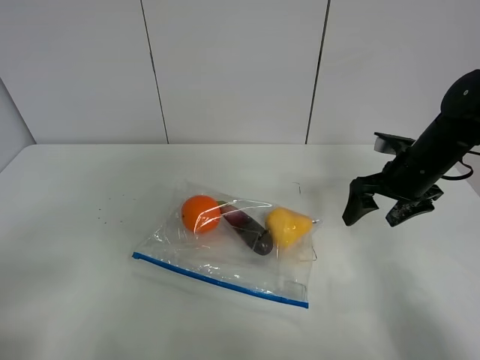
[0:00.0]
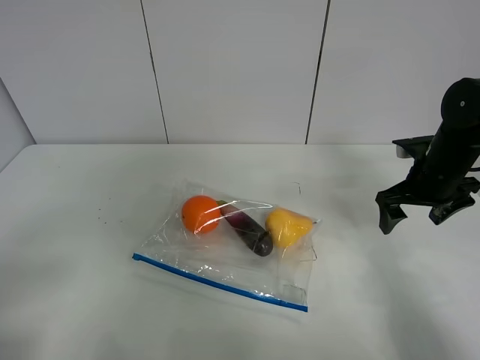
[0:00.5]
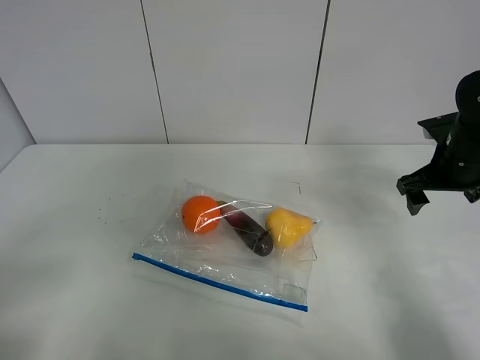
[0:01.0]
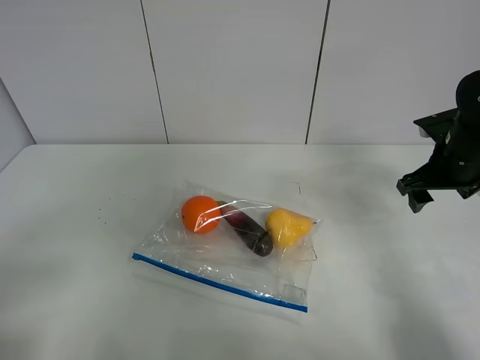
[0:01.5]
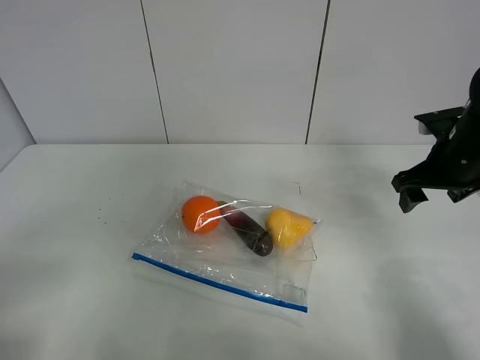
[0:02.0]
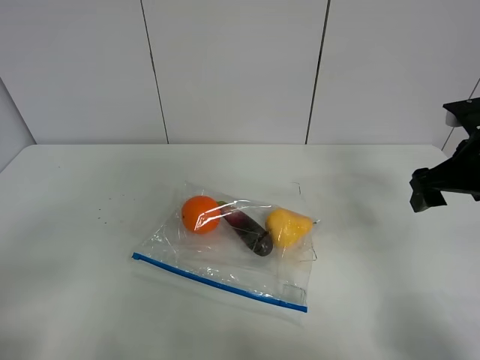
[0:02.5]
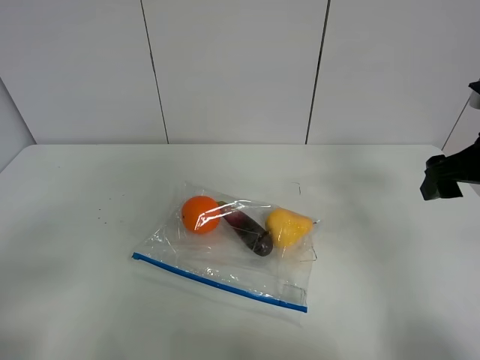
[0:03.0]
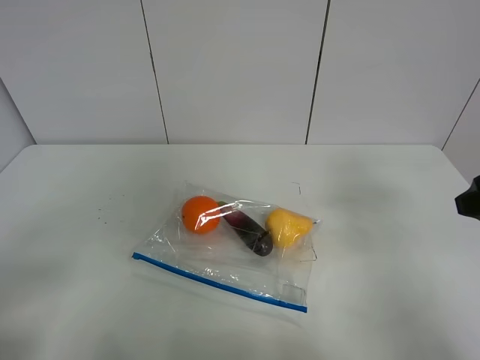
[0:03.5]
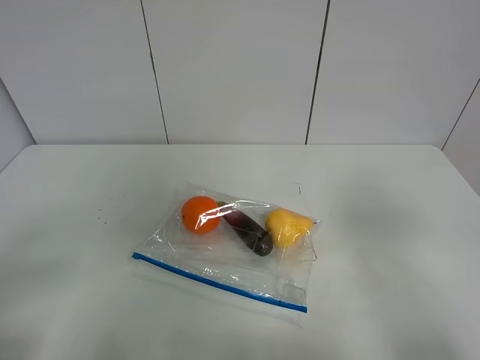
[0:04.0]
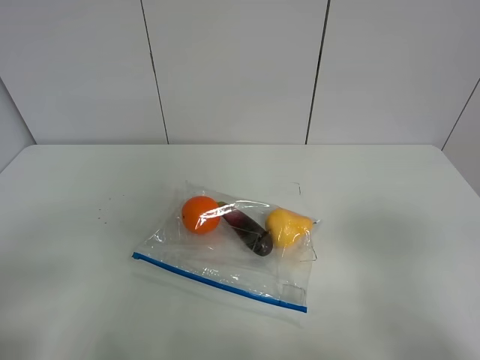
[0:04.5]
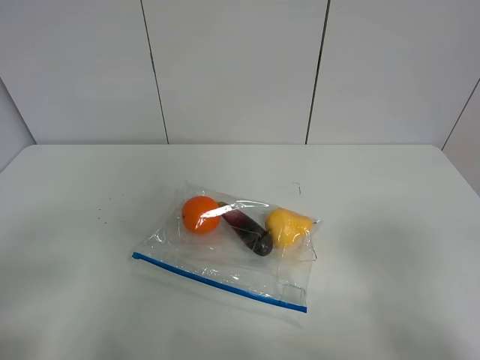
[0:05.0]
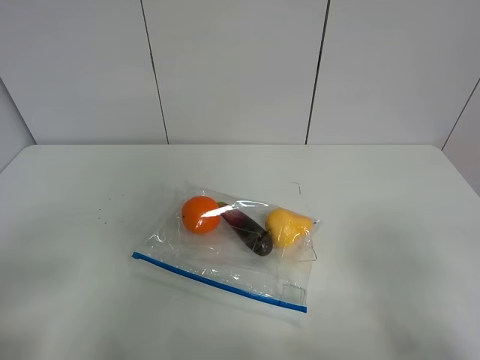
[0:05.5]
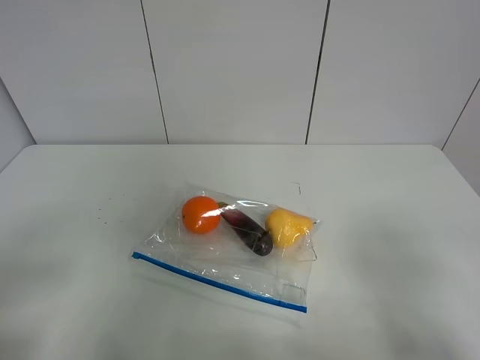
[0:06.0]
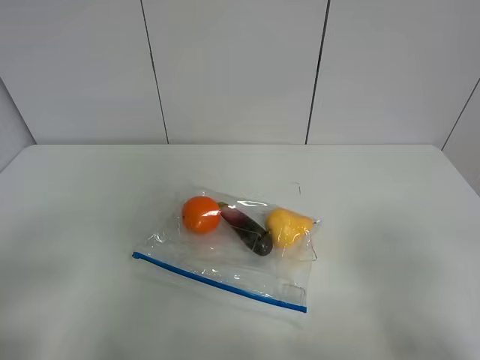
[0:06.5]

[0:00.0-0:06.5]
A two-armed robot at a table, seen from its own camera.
0:00.0 to 0:02.0: The right gripper shifts by about 5 cm.
0:02.0 to 0:04.5: The right gripper heads backward, covering about 35 cm.

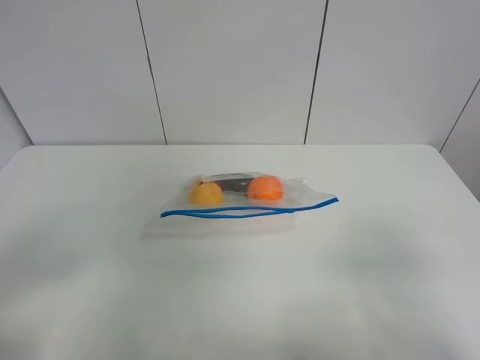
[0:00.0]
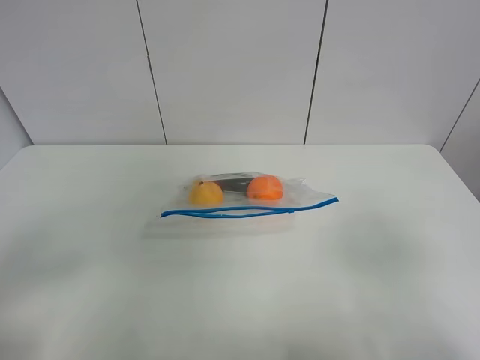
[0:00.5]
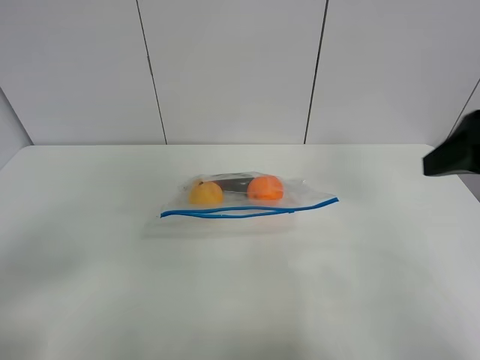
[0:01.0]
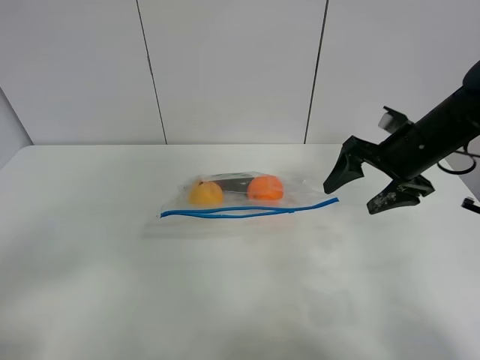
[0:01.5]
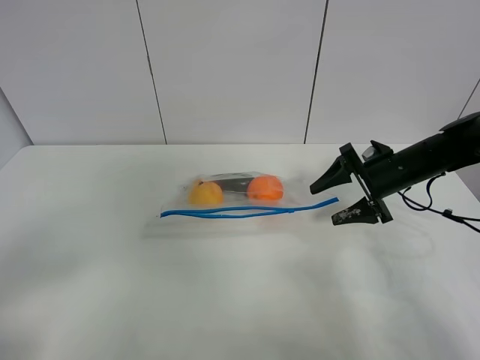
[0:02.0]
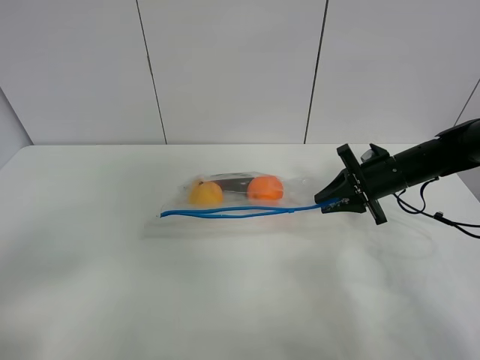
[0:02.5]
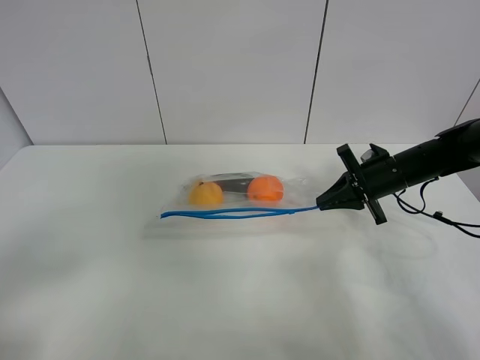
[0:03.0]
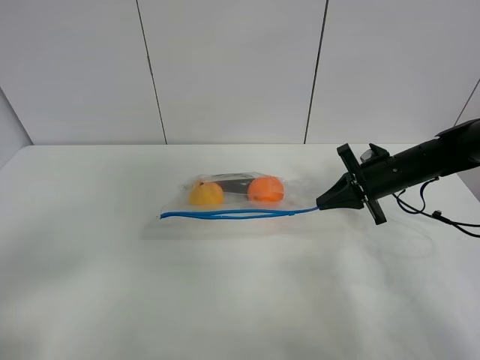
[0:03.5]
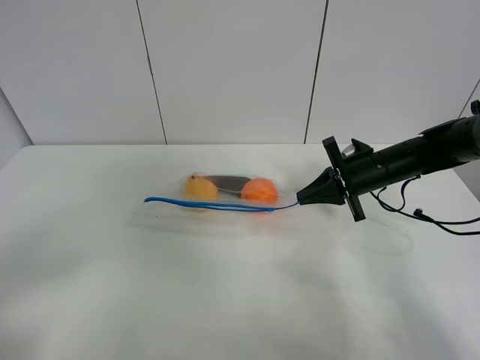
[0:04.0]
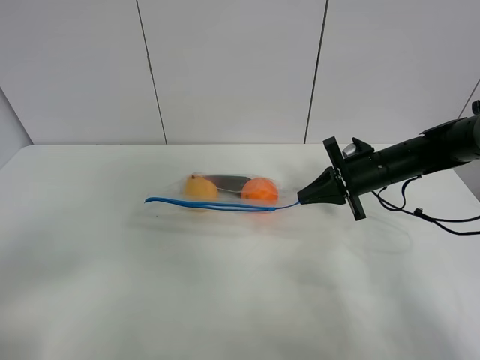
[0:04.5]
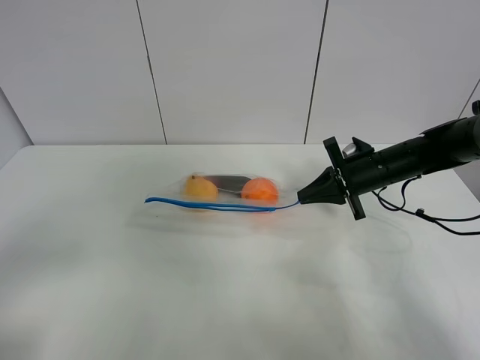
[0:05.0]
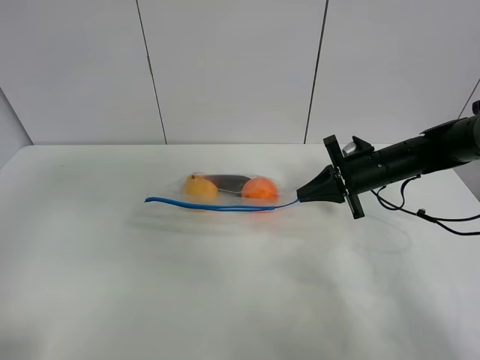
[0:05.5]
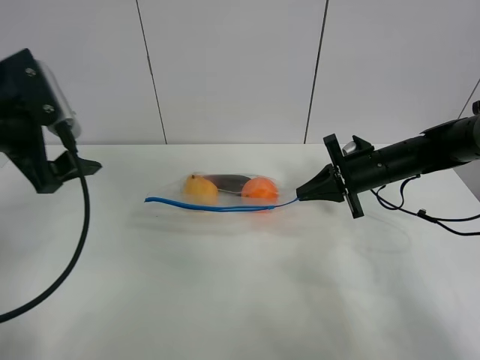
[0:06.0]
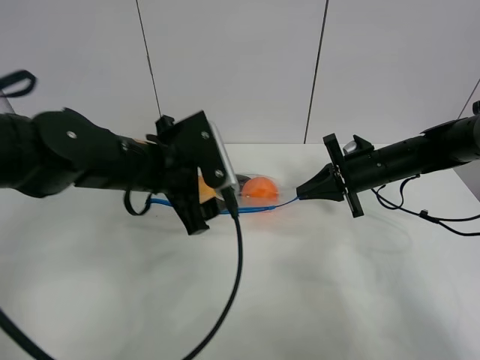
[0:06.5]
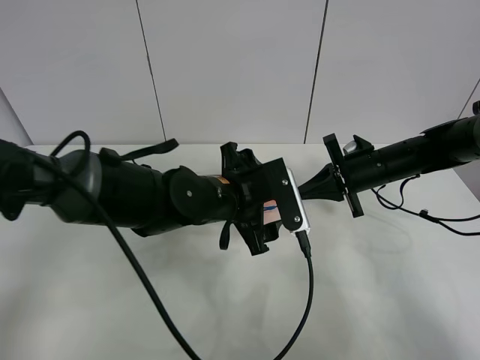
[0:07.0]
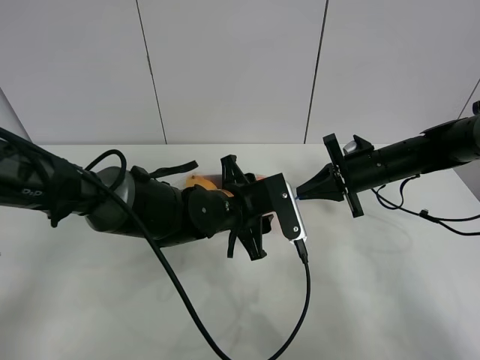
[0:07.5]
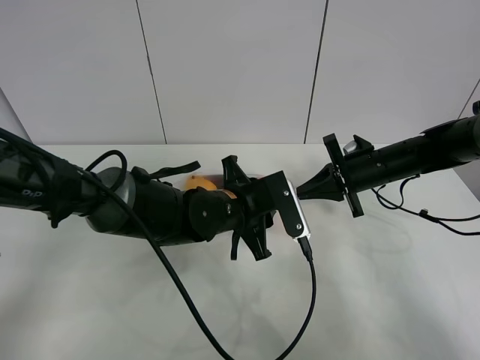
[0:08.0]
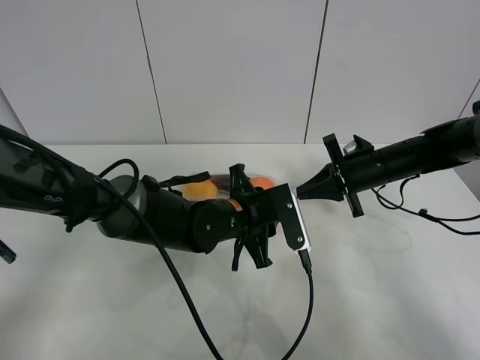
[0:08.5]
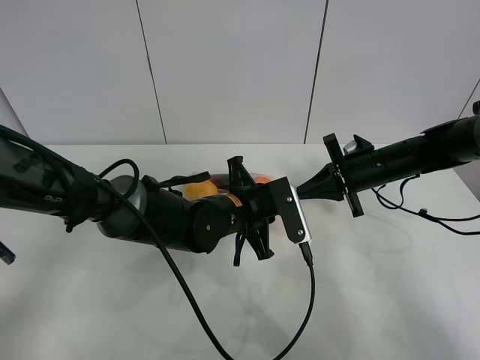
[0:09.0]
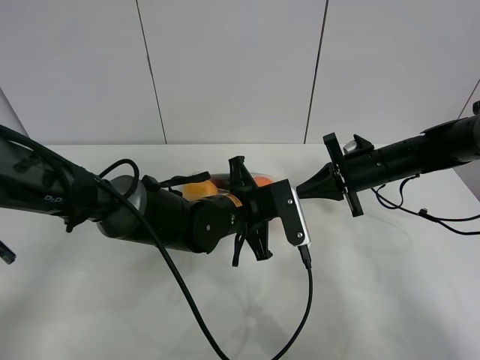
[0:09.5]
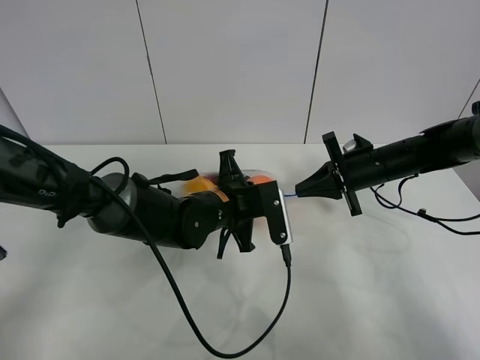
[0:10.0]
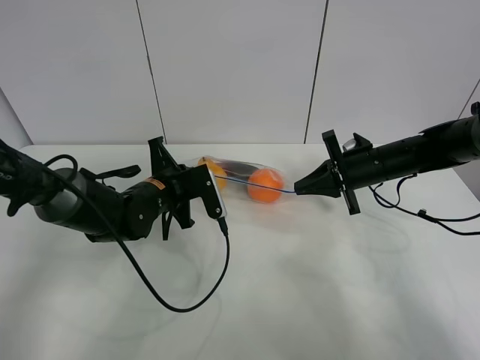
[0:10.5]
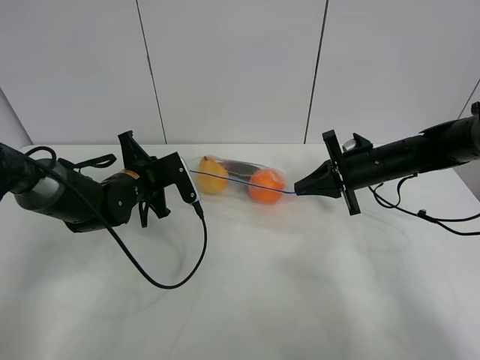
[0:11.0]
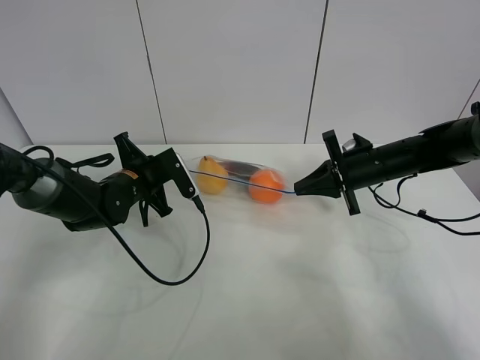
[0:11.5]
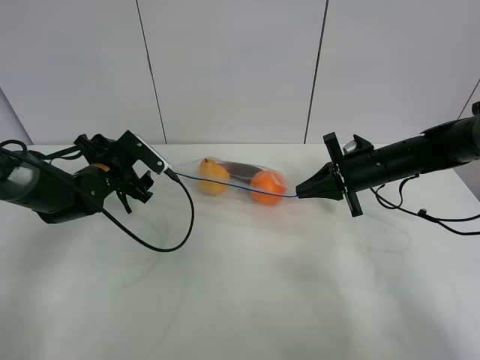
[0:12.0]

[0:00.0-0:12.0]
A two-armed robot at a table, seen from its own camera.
Step, 0:00.0 to 0:03.0: Grasp the fruit bag with right gripper.
Step, 0:03.5 to 0:04.5: Lift the fruit bag with your right gripper.
Step, 0:05.0 to 0:11.5: Pull the fruit bag with left gripper.
0:00.0 to 0:02.0: The right gripper moves forward, some 35 cm.
0:02.0 to 0:04.0: The right gripper closes up.
0:04.0 to 0:06.0: The left gripper moves forward, approximately 25 cm.
0:06.0 to 0:08.0: The left gripper shifts some 30 cm to the right and downward, and closes.
0:08.0 to 0:10.0: The left gripper closes its fingers.
0:10.0 to 0:12.0: The left gripper goes approximately 20 cm to the left, and opens.

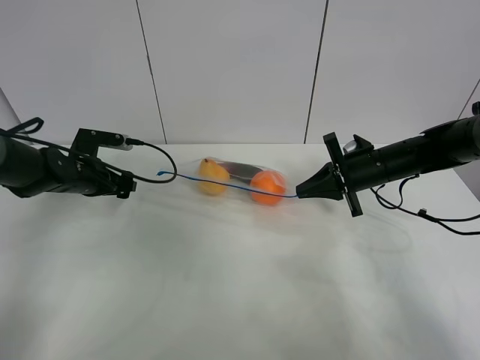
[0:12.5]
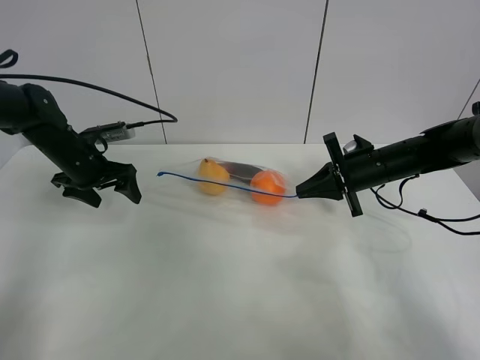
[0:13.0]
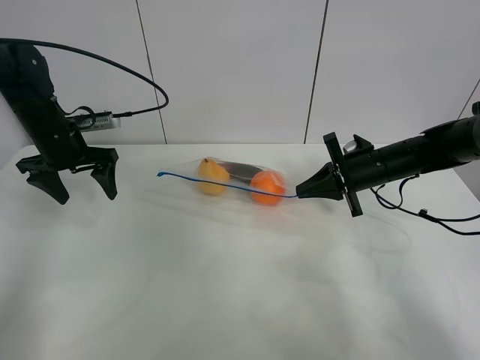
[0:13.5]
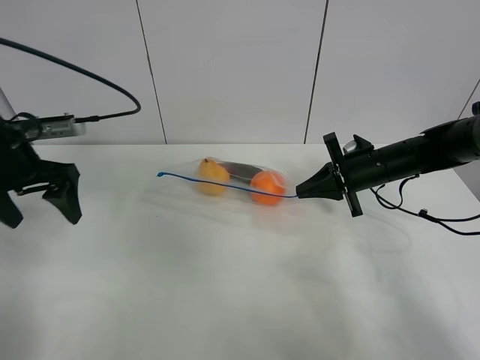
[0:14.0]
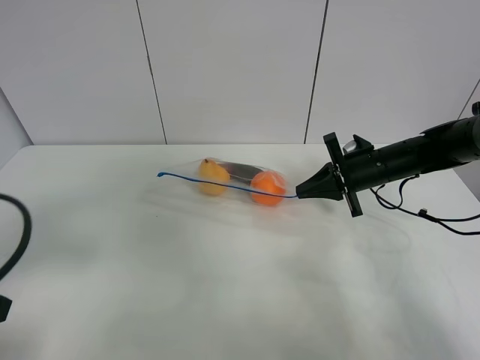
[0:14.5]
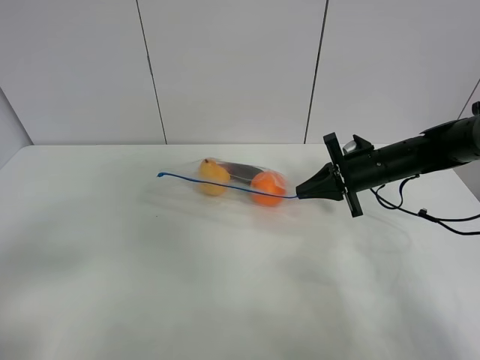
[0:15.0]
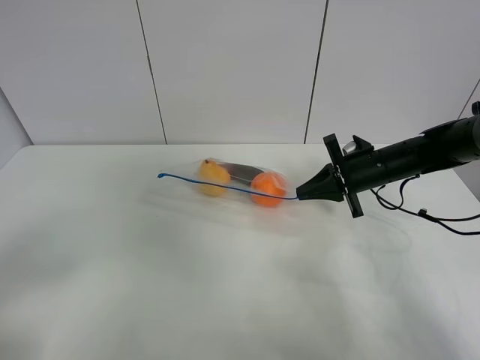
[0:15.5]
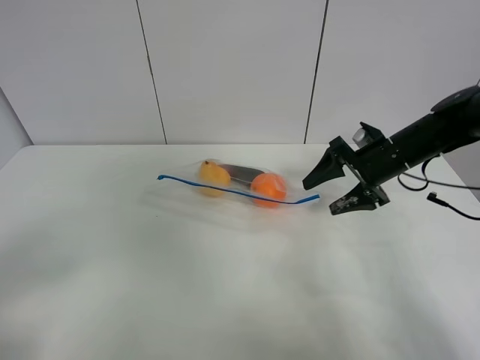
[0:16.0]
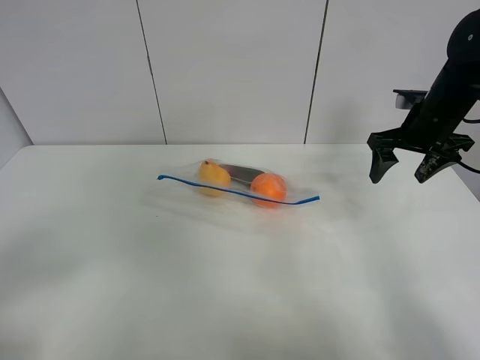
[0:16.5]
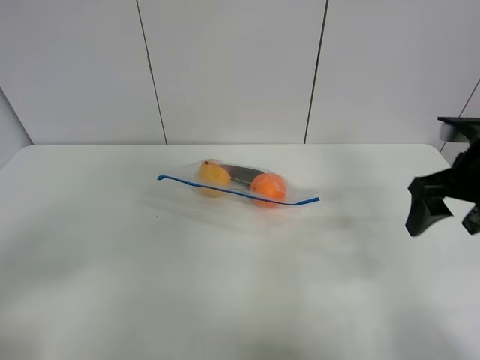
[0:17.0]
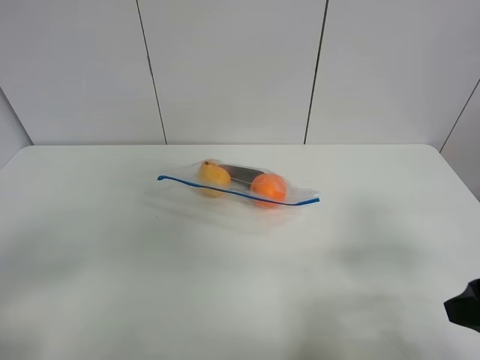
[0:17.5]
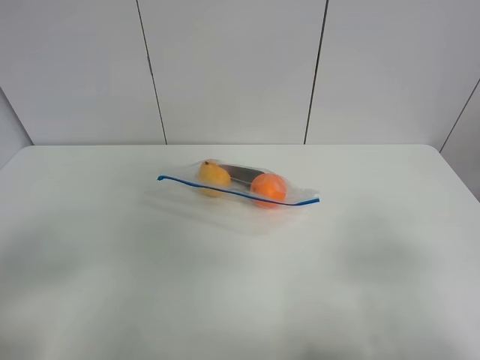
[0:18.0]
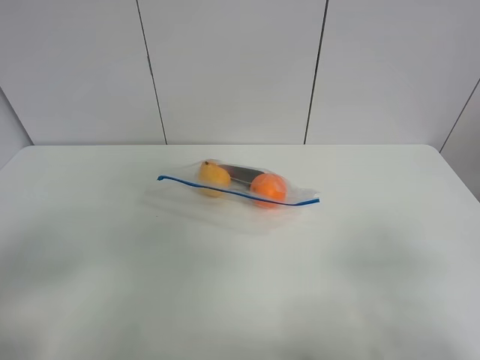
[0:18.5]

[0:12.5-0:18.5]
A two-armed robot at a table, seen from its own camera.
0:12.5 to 0:14.5: The left gripper goes about 35 cm backward and upward.
0:14.5 to 0:16.5: The left gripper is displaced backward by some 10 cm. The right gripper moves upward and to the right, approximately 10 cm, and opens up.
0:16.5 to 0:18.5: The right gripper moves backward, some 40 cm.

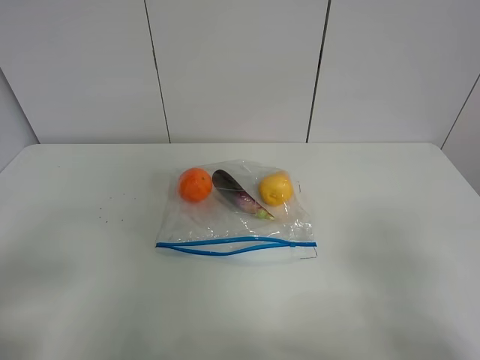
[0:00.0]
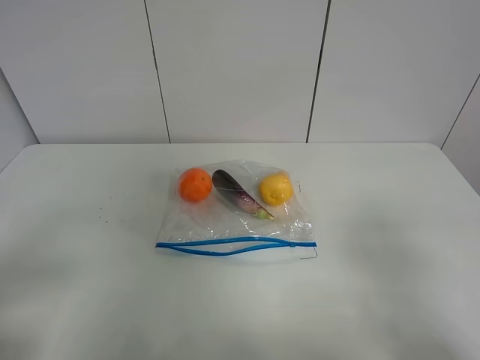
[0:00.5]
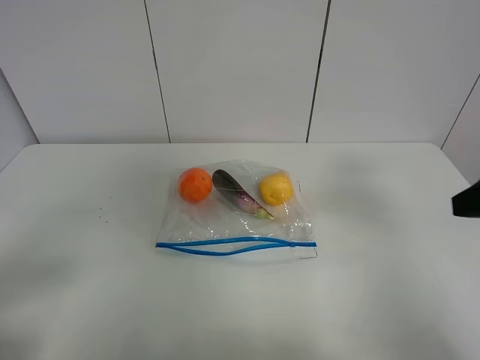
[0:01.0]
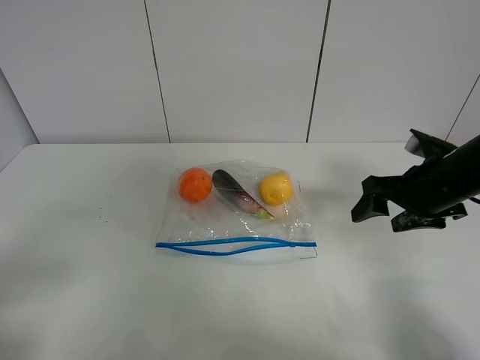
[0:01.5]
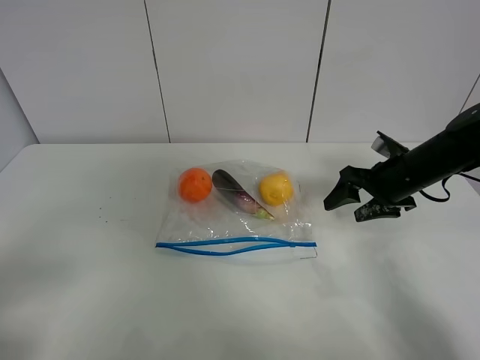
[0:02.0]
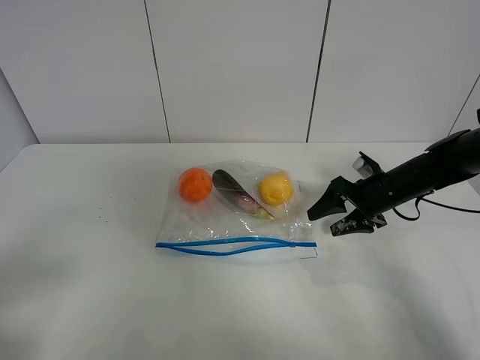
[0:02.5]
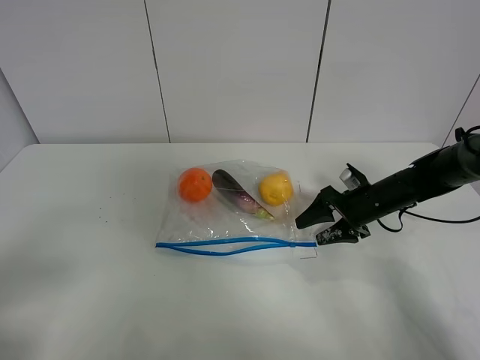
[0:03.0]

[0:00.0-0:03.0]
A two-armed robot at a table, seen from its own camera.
0:00.0 to 0:01.5: The right gripper moves forward, about 30 cm.
0:01.5 to 0:03.0: The right gripper heads downward and forward, covering about 15 cm.
